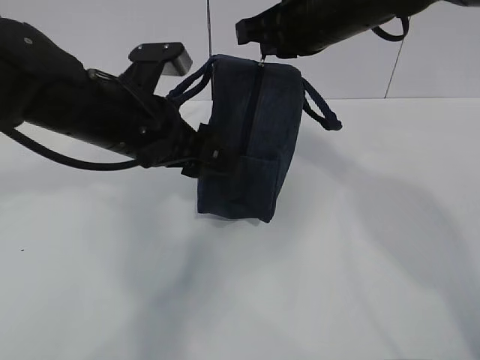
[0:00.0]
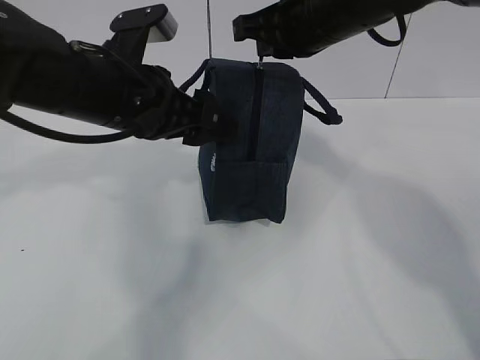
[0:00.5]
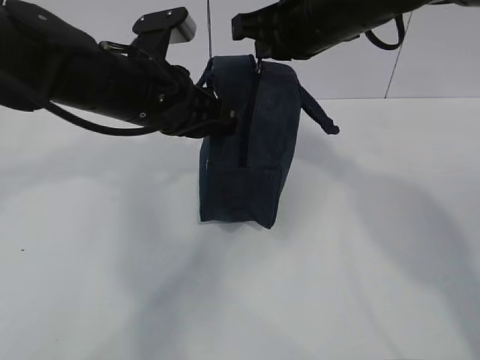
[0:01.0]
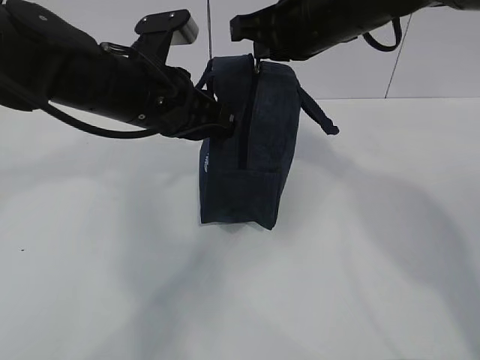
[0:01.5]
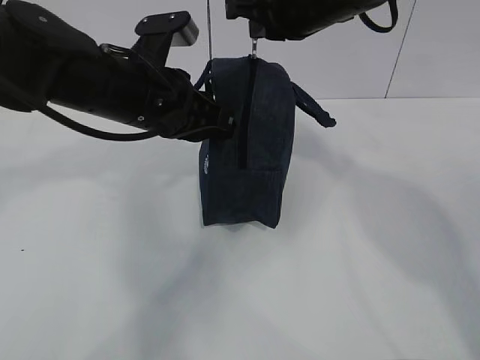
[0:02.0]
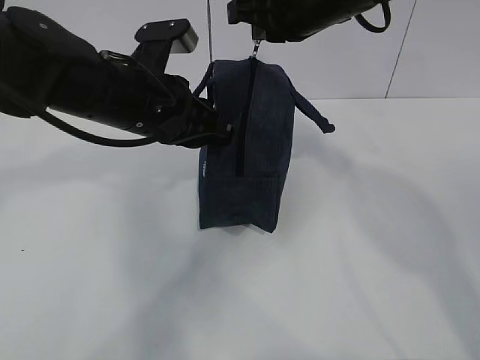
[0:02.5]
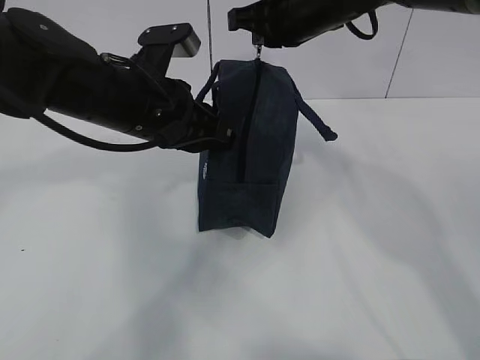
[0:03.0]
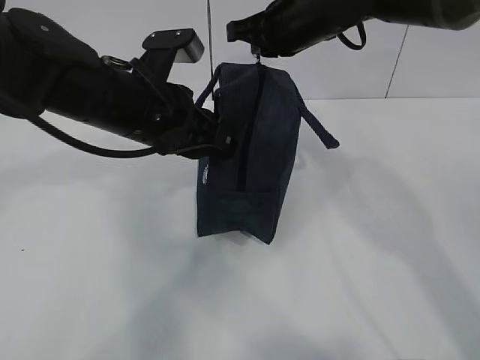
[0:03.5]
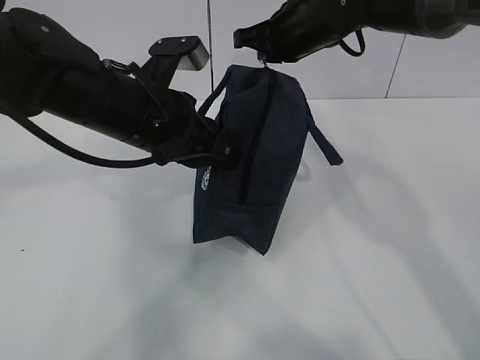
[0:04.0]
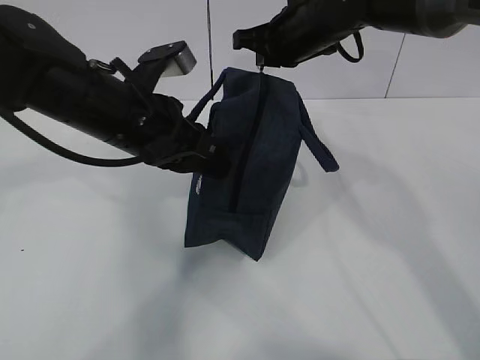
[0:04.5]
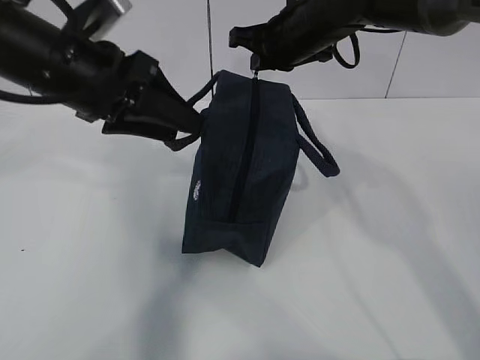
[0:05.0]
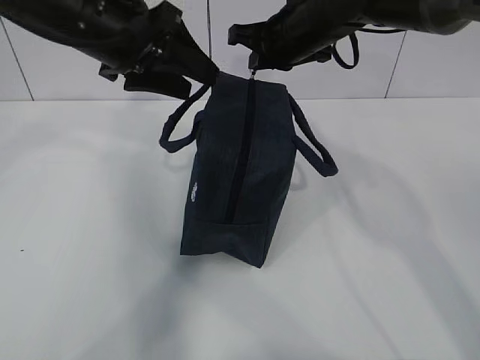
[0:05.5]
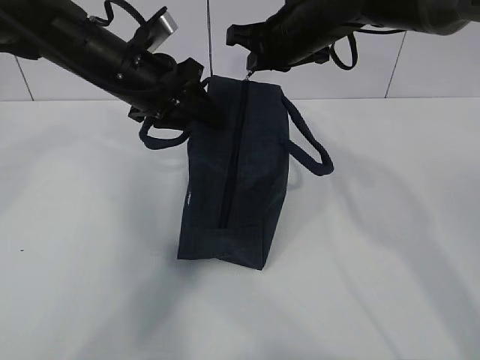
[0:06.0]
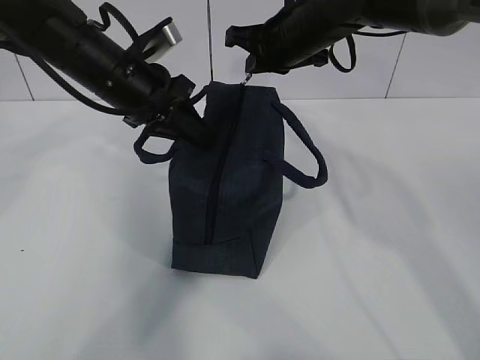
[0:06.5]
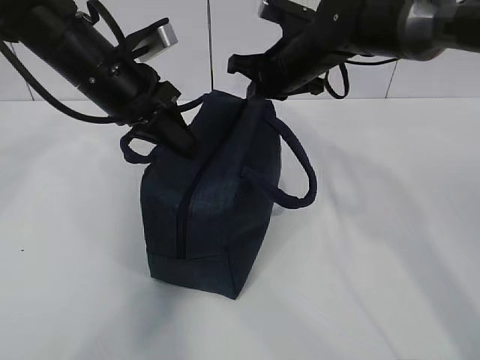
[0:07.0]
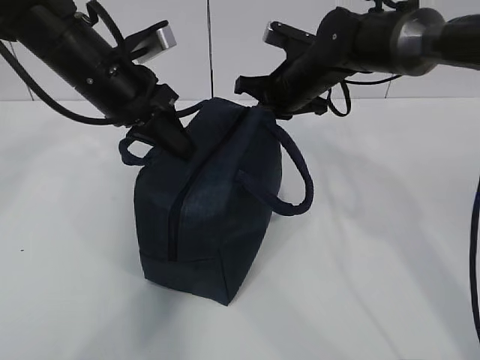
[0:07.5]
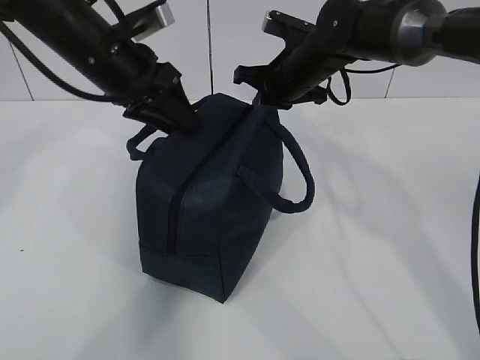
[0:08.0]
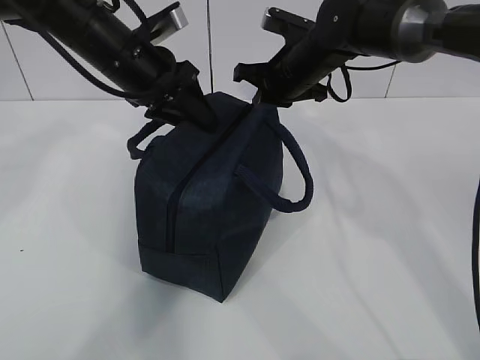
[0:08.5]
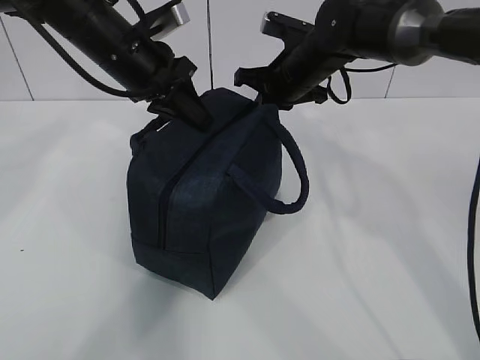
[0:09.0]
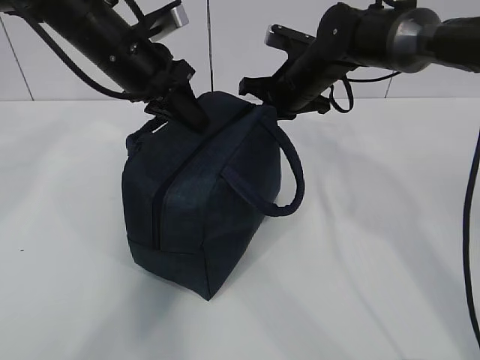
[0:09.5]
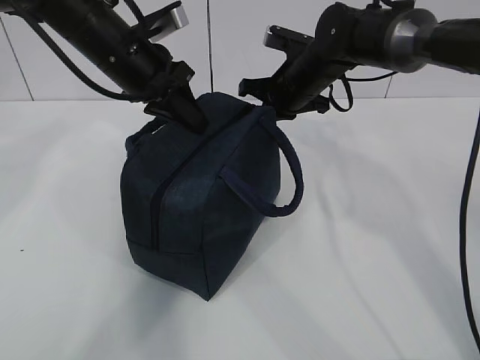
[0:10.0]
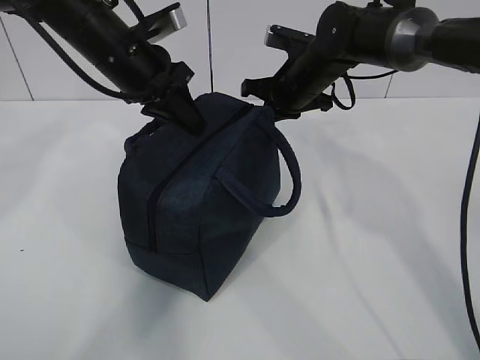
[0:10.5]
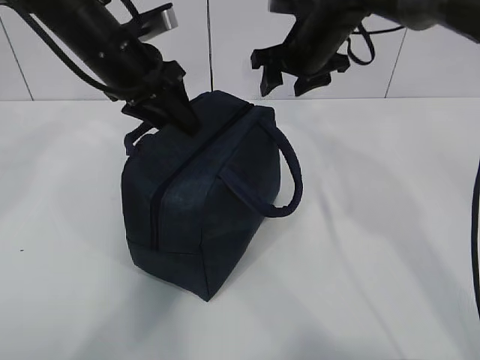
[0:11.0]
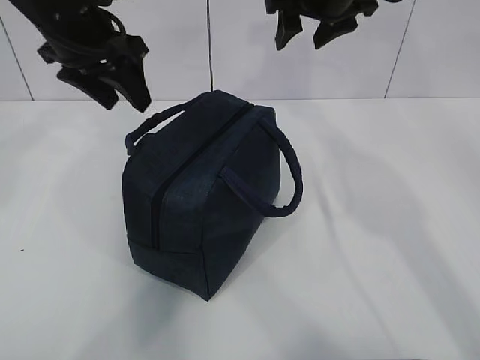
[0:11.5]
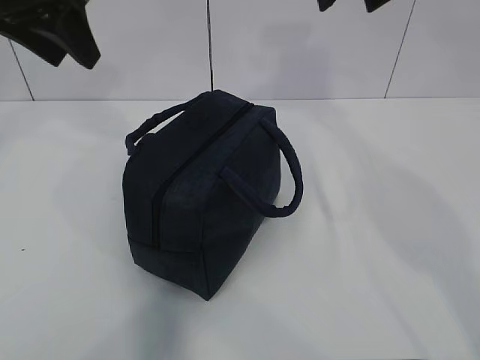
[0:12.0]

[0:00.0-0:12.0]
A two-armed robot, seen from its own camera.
0:00.0 to 0:02.0: The left gripper closes.
0:02.0 to 0:04.0: The right gripper goes about 10 cm forward and downward.
0:04.0 to 0:06.0: The left gripper is displaced forward by approximately 10 cm, and opens up.
0:06.0 to 0:08.0: The right gripper goes roughly 5 cm downward. Meanwhile the left gripper closes and opens again.
0:08.0 to 0:10.0: The left gripper closes up.
0:10.0 to 0:12.0: The left gripper goes about 15 cm upward, to the left and backward, and opens. The right gripper moves upward and backward, approximately 25 cm, and opens.

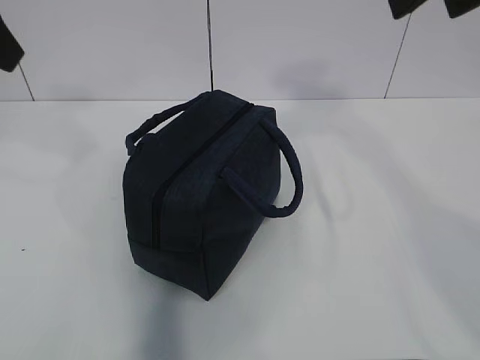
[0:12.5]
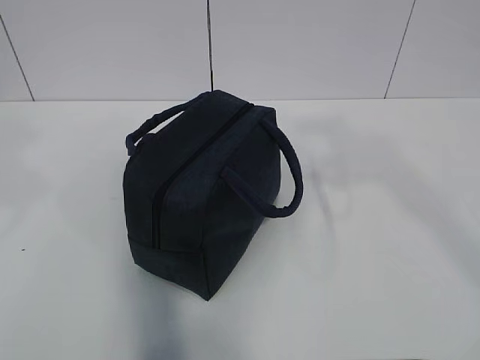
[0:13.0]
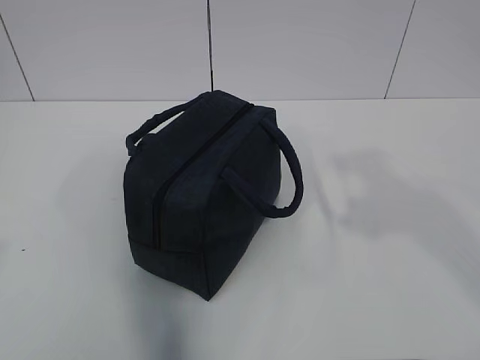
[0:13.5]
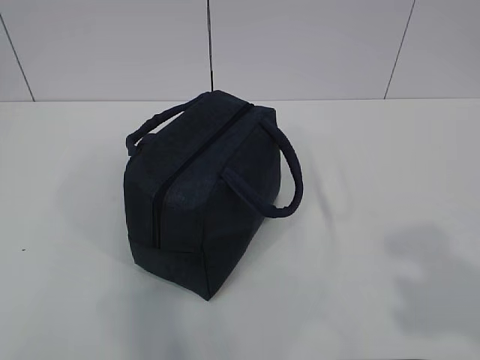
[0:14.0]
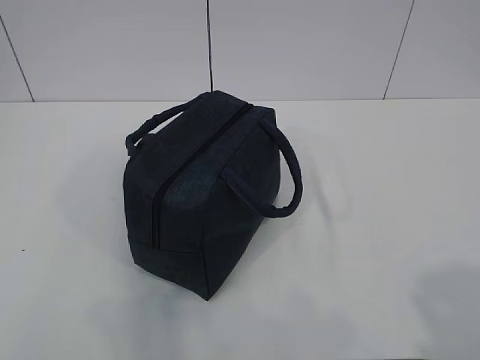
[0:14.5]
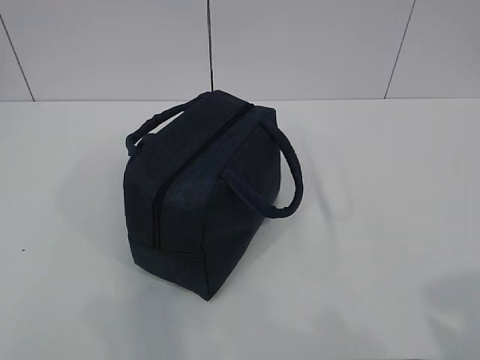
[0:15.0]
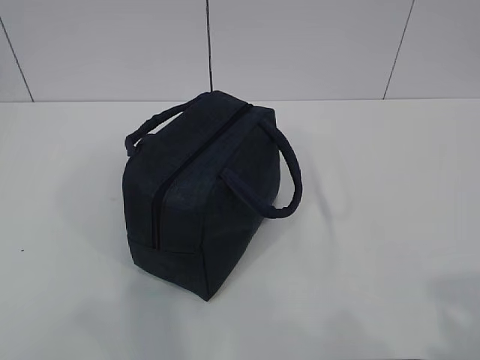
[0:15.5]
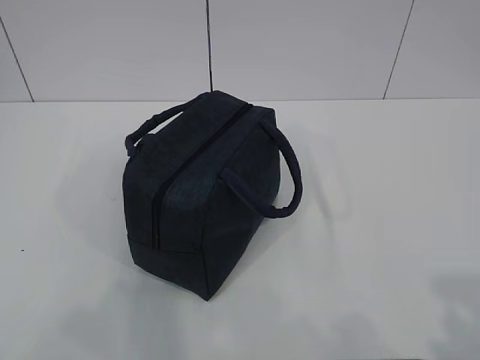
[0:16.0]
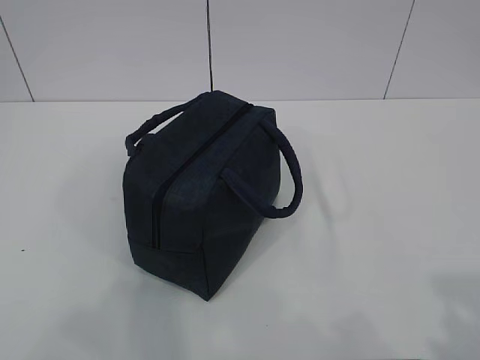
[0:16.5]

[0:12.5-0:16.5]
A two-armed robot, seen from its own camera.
0:12.5 to 0:14.5: Both grippers move backward and downward, about 30 cm.

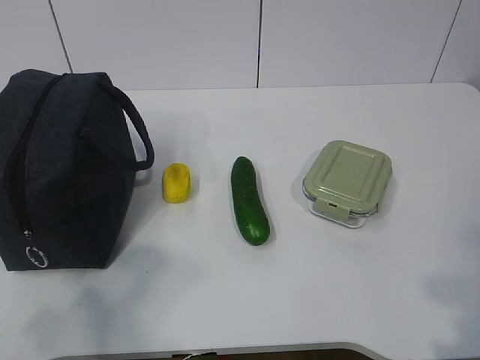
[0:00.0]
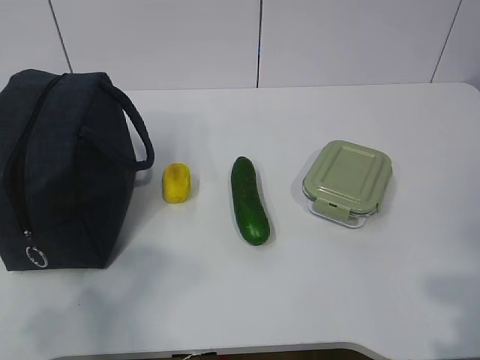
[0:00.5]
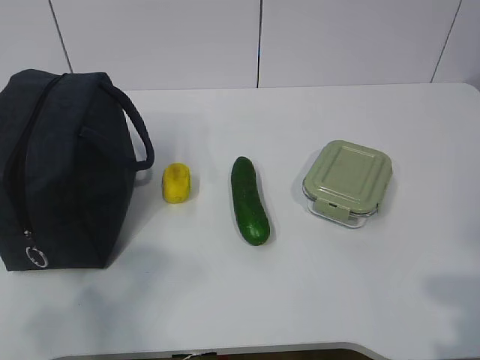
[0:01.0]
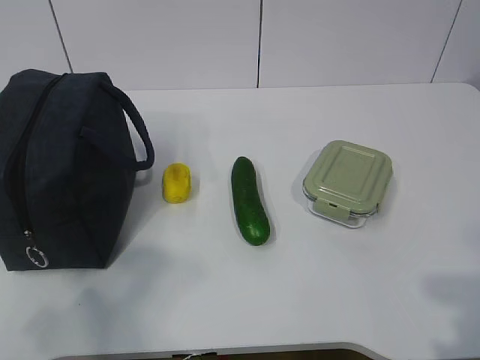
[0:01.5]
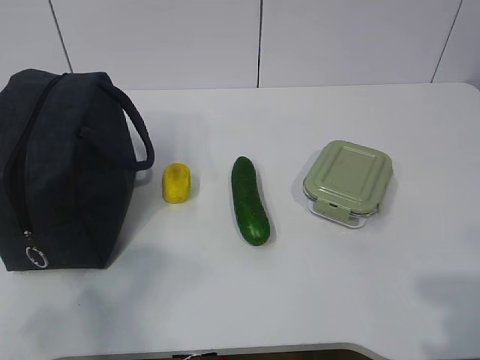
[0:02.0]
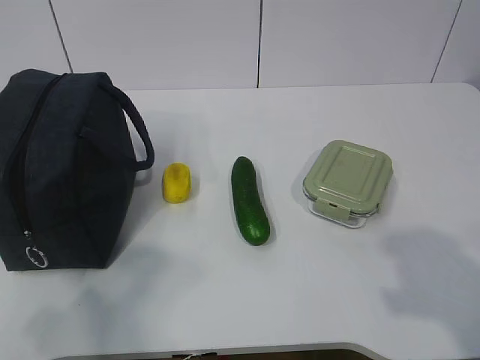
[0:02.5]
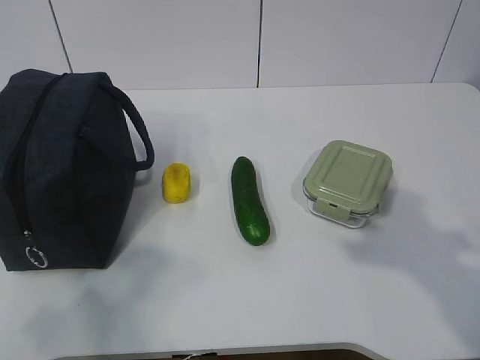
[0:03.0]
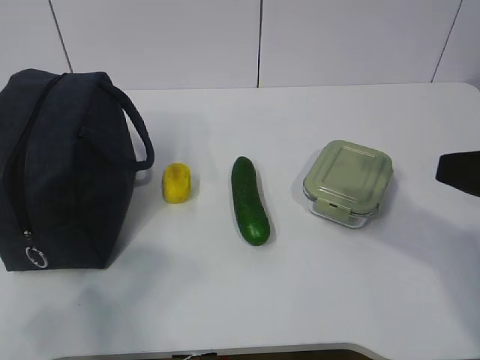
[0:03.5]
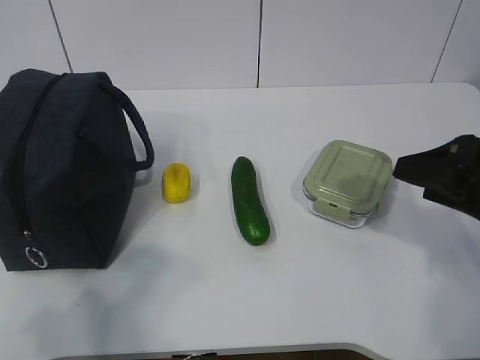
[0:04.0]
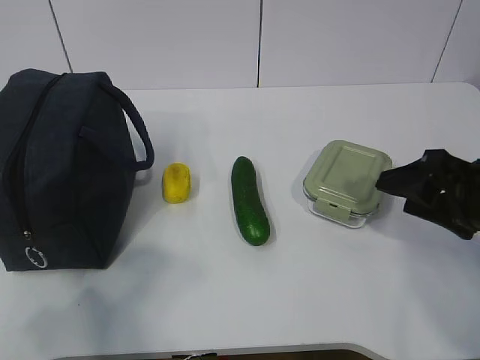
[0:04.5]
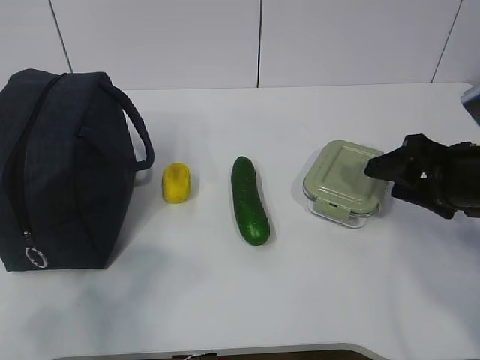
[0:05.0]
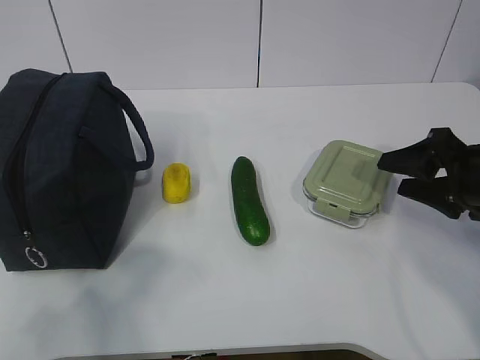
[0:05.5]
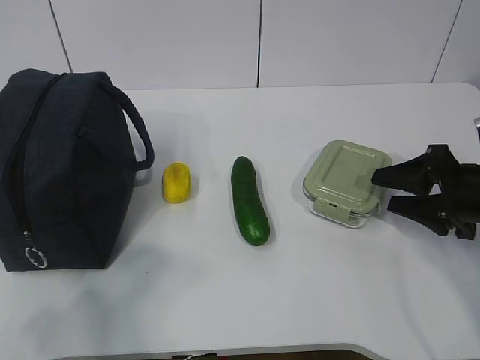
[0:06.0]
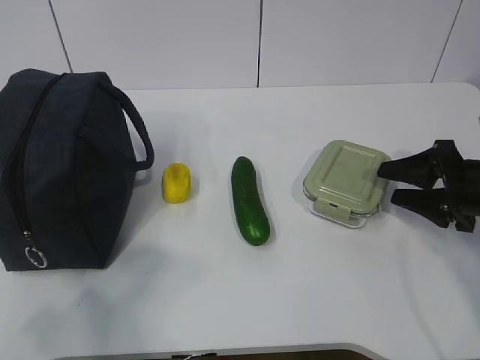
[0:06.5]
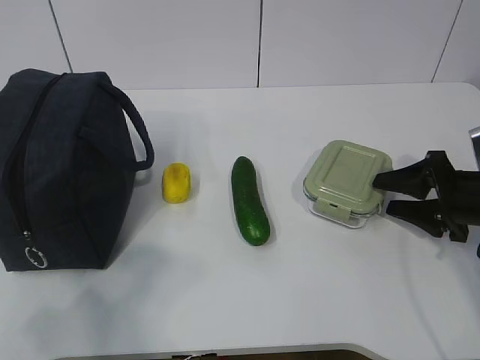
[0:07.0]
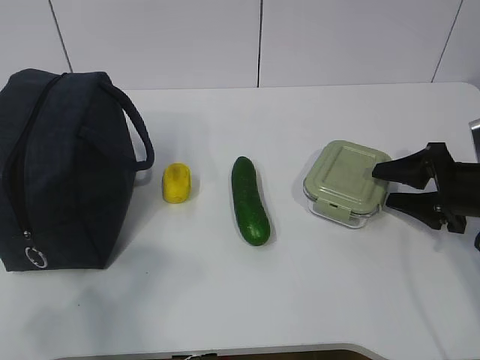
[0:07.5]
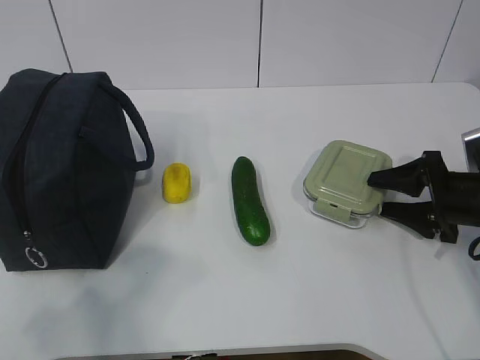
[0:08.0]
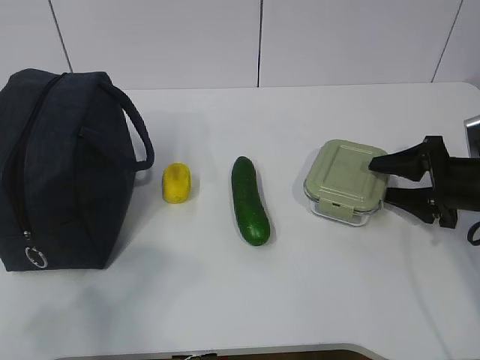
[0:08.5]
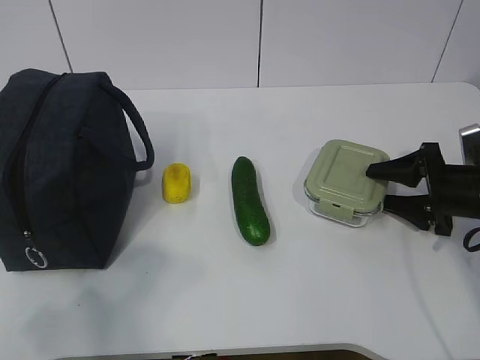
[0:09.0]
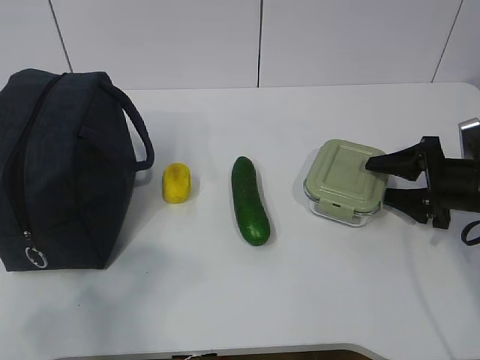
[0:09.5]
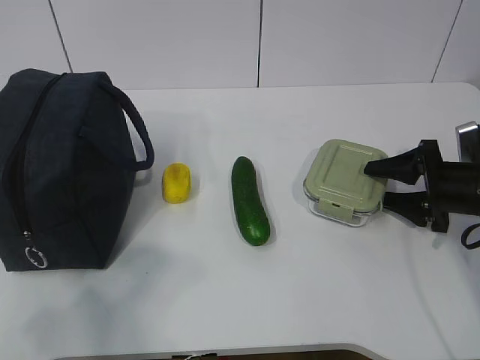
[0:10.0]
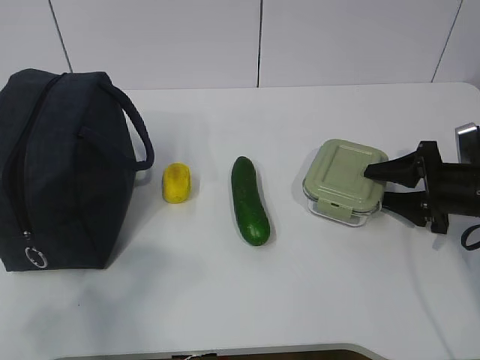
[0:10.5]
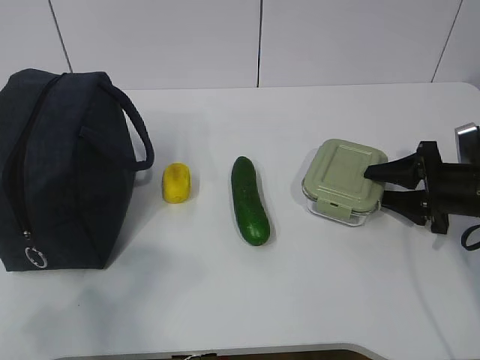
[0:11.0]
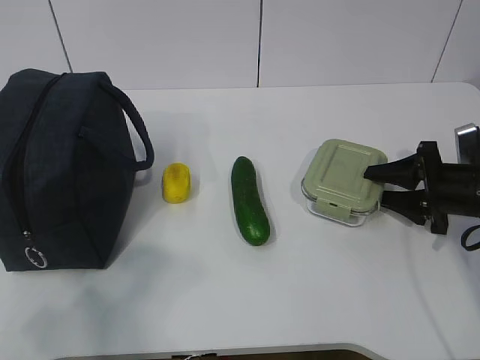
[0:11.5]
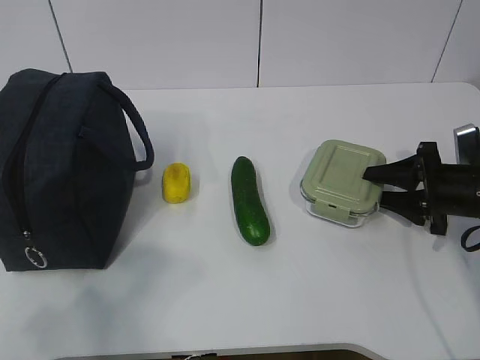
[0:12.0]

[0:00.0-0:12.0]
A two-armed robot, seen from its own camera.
Step, 0:00.0 to 0:11.5: Grab the lunch box with your right hand.
0:02.0 to 0:04.0: The right gripper is displaced forward by some 25 cm.
0:04.0 to 0:06.0: The right gripper moves downward and forward, roughly 10 cm.
0:06.0 to 0:08.0: The right gripper shifts by about 5 cm.
0:08.0 to 0:10.0: The grippers make only small movements.
0:10.0 to 0:12.0: Both grippers stay put.
